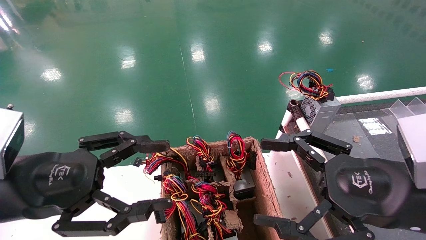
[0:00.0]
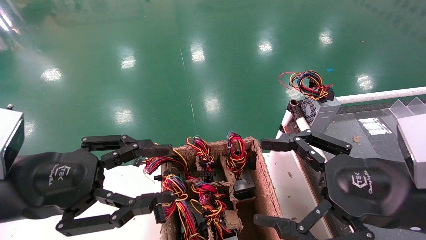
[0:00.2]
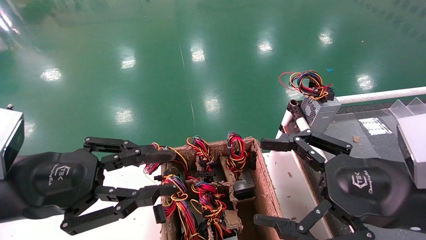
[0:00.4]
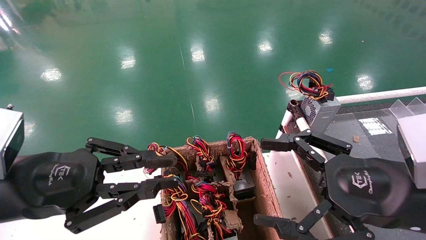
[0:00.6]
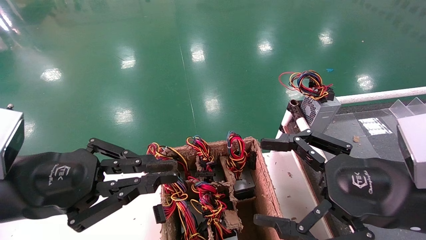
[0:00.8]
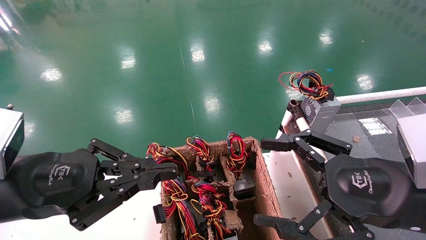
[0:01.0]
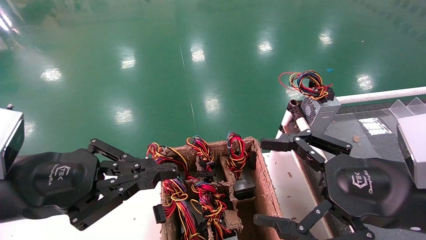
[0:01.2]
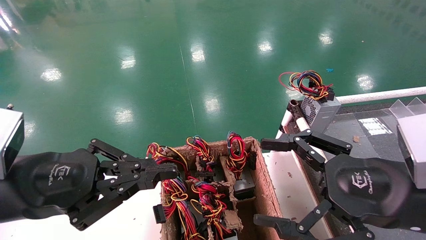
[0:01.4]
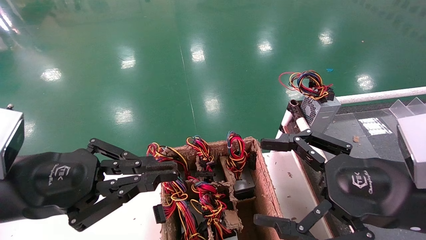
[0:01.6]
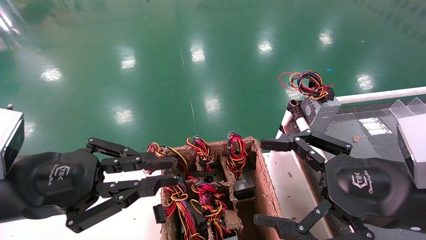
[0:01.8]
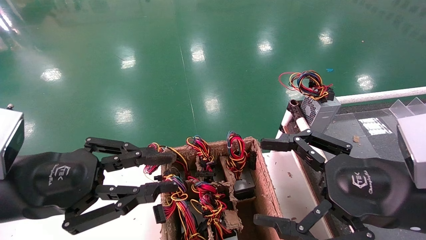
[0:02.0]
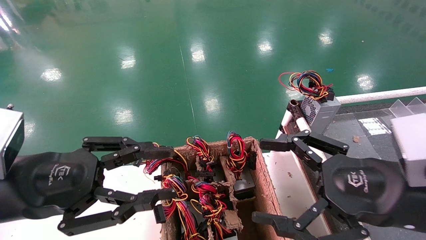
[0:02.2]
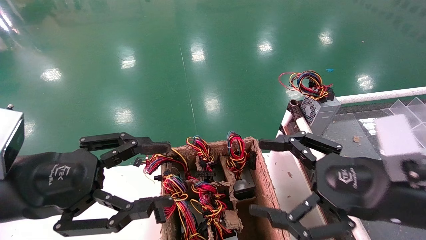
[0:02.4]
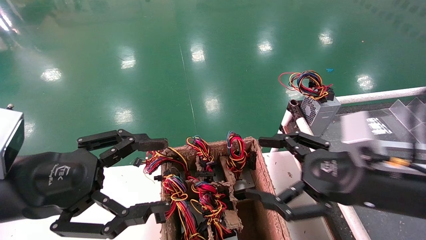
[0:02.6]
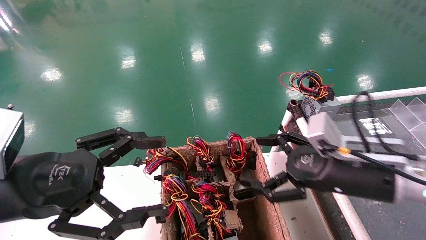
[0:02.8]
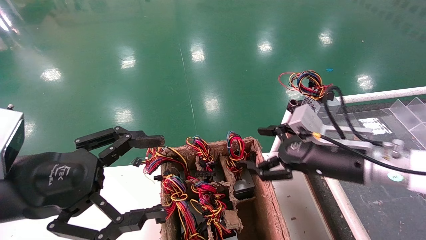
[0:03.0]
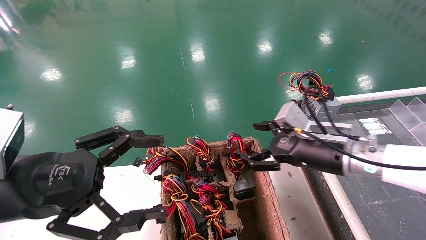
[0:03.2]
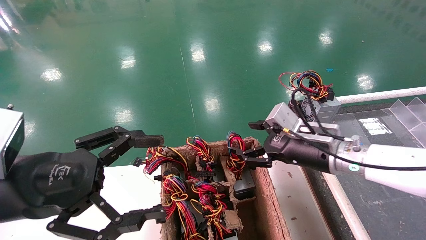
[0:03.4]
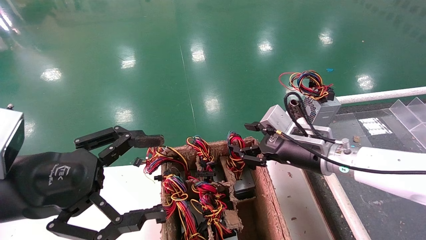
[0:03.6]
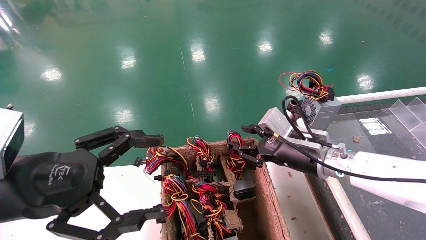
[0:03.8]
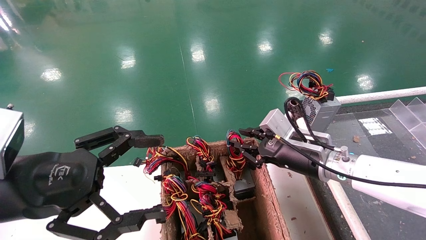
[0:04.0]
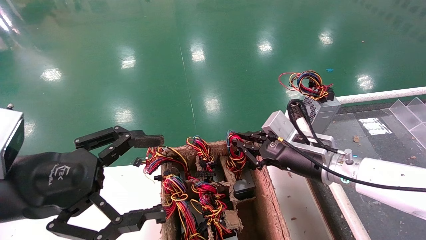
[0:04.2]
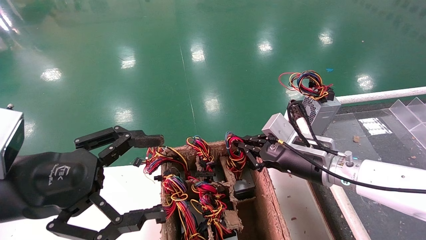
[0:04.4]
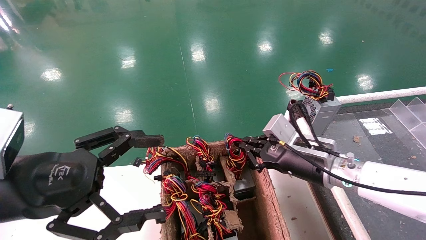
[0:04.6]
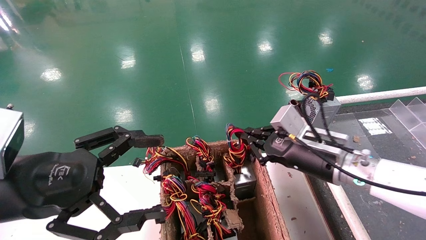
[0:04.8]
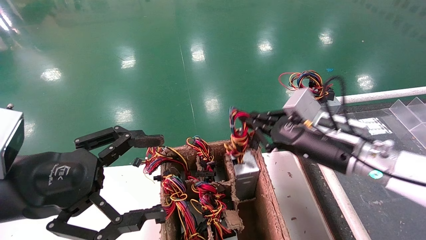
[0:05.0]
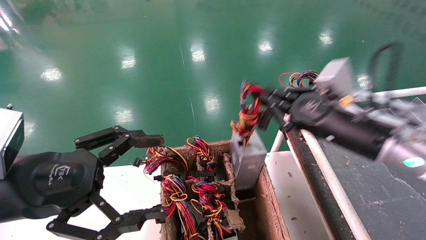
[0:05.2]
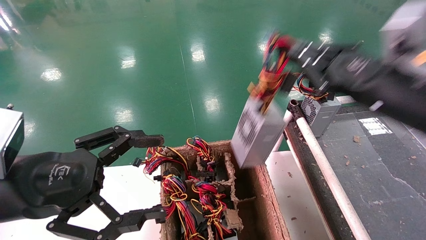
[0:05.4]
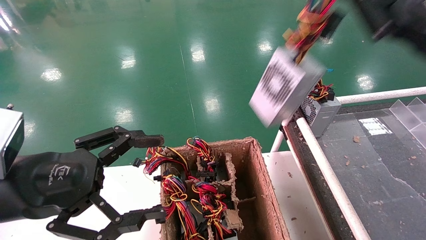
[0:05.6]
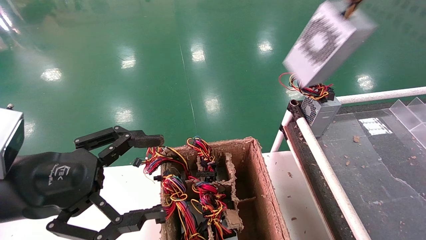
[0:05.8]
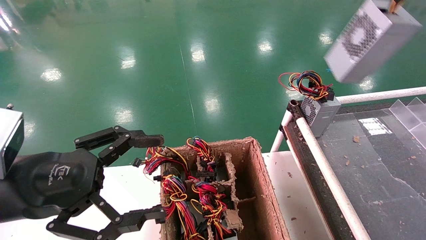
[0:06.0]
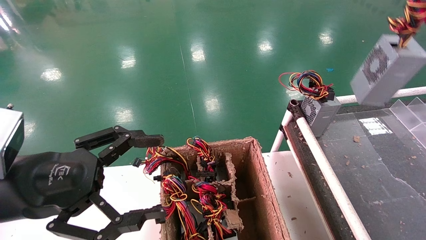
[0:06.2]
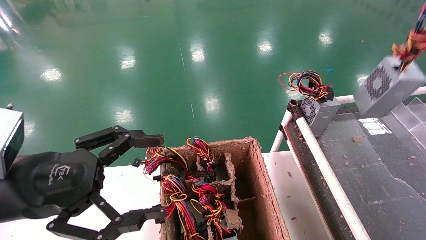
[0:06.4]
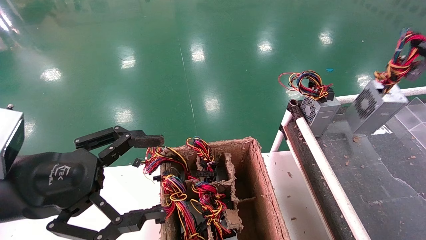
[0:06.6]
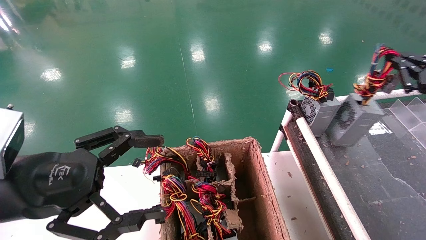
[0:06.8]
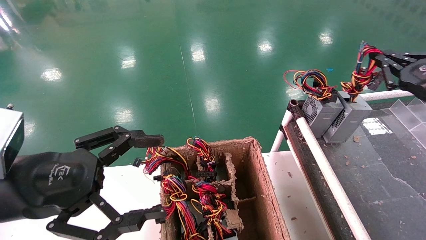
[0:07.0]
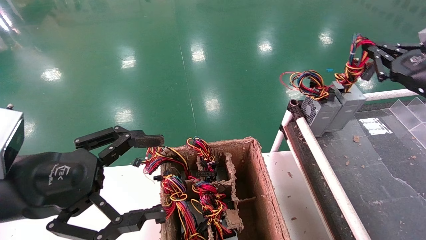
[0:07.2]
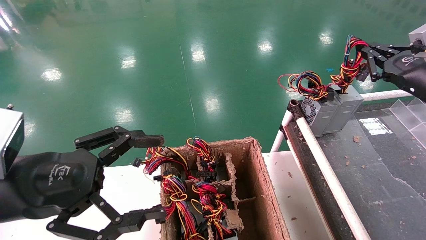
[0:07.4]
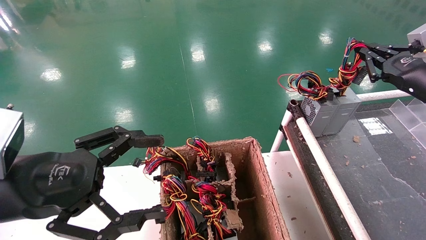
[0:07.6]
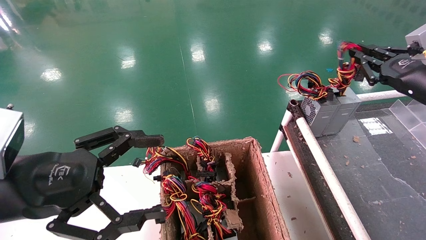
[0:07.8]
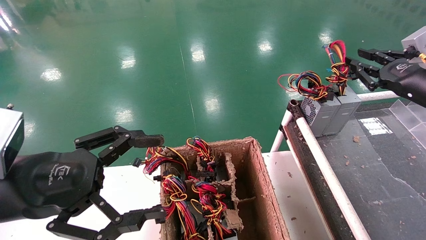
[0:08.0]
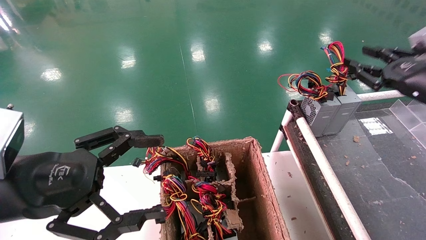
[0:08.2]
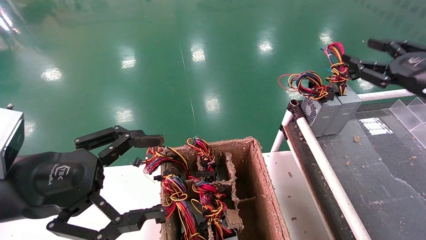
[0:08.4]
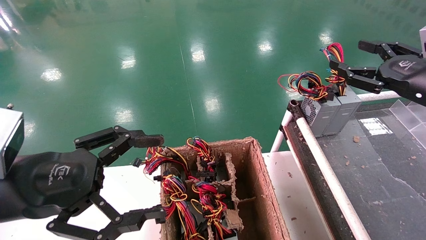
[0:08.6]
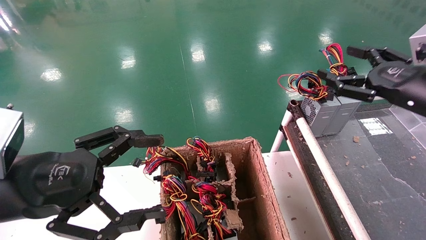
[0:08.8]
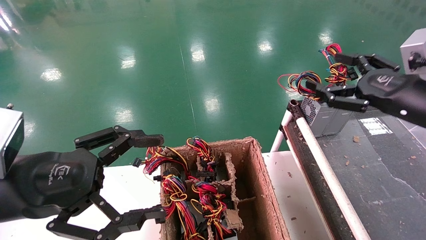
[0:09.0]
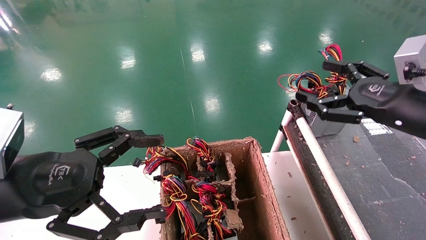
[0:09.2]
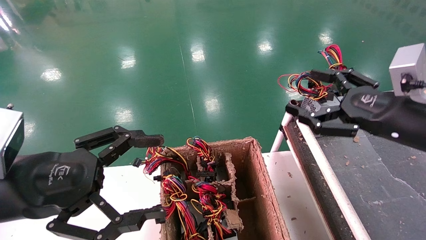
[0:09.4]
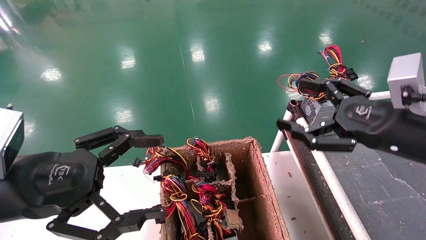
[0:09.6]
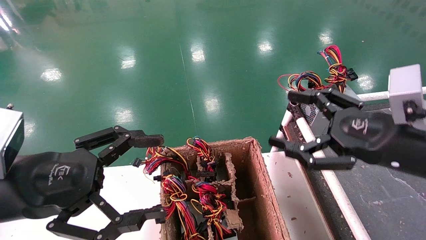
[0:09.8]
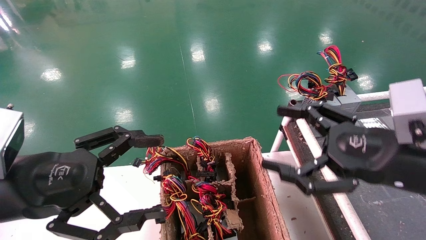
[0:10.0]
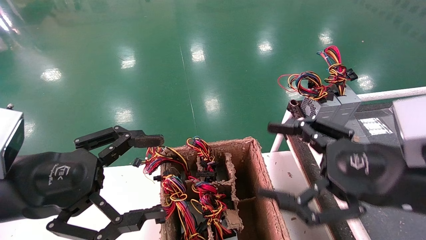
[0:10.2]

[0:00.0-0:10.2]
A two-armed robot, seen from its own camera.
Step, 0:02.4 to 0:04.4: Grab and lift the power supply from the large box.
Step, 0:04.6 to 0:08.2: Place the power supply on the operating table.
0:00.0 to 0:01.4: The left gripper closes.
0:01.4 to 0:03.0: The left gripper opens up. Meanwhile the right gripper shifts approximately 15 cm forward.
0:03.0 to 0:04.4: The right gripper changes place by about 5 cm, and closes up.
0:04.4 to 0:05.8: The right gripper shifts about 30 cm upward, to the right and backward.
0:05.8 to 0:07.2: The right gripper travels forward, downward and to the right by some 15 cm.
0:07.2 to 0:08.8: The right gripper moves about 5 cm, and opens up.
0:08.8 to 0:10.2: The right gripper heads backward, to the left and downward, covering some 15 cm.

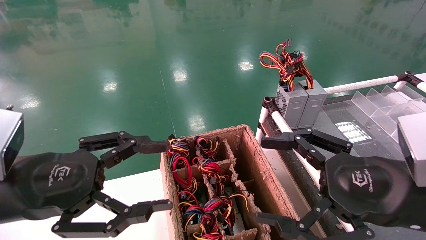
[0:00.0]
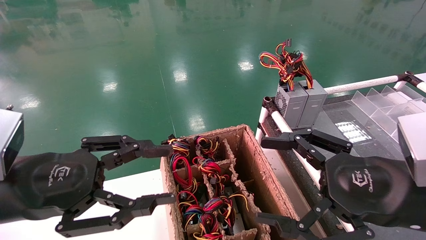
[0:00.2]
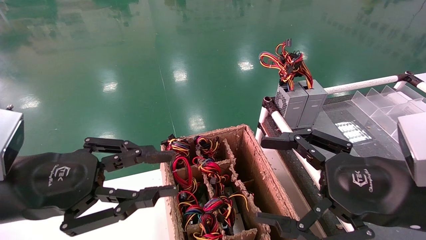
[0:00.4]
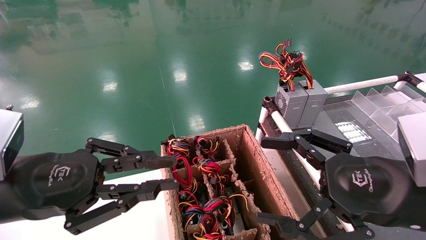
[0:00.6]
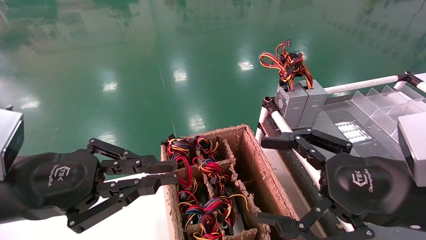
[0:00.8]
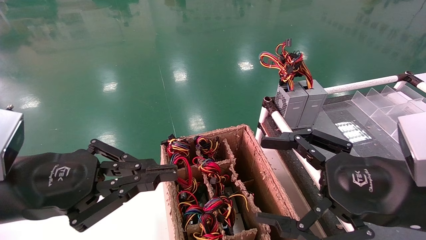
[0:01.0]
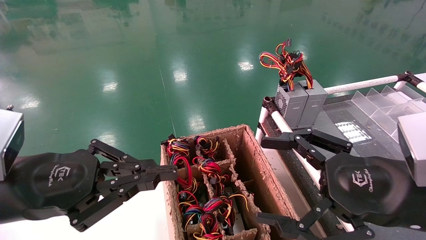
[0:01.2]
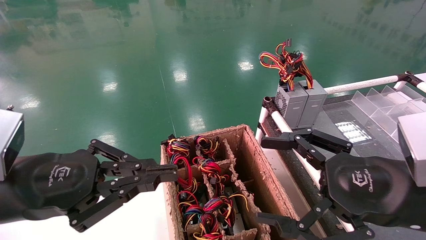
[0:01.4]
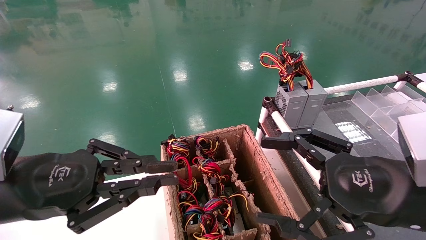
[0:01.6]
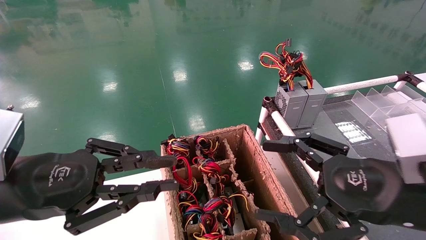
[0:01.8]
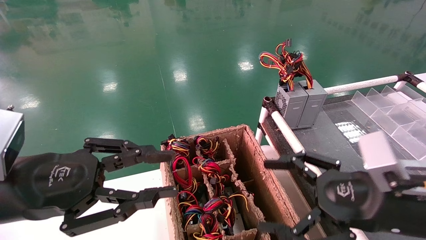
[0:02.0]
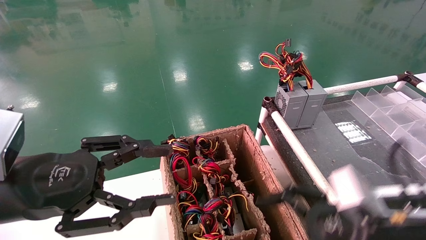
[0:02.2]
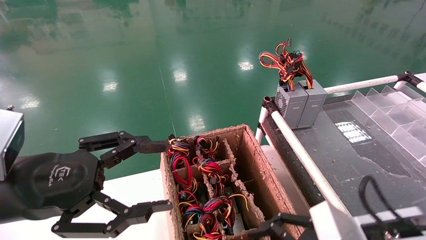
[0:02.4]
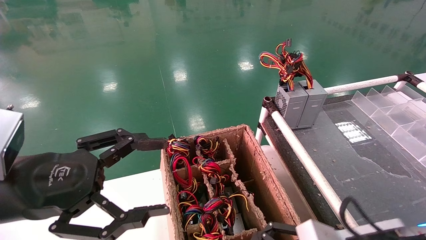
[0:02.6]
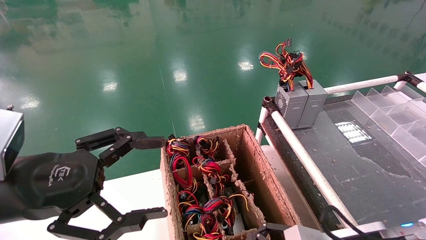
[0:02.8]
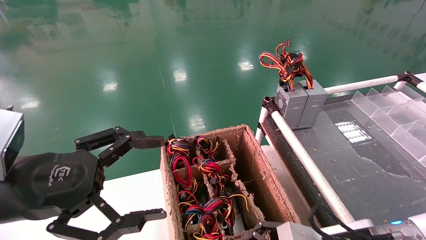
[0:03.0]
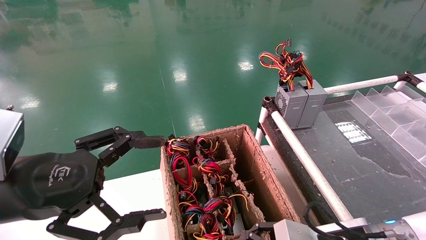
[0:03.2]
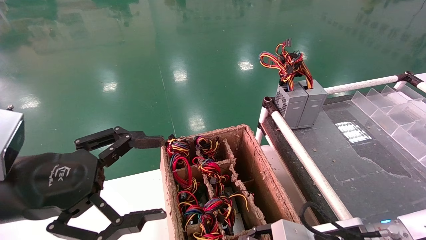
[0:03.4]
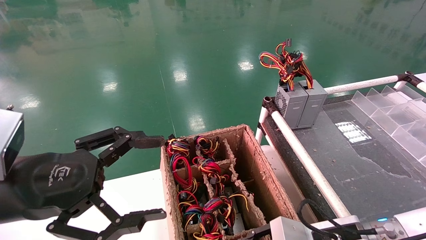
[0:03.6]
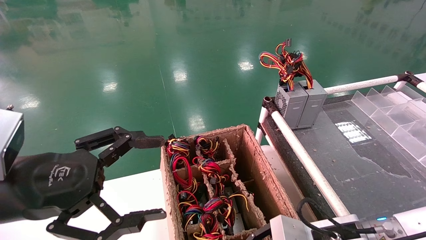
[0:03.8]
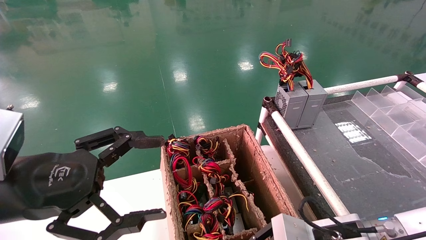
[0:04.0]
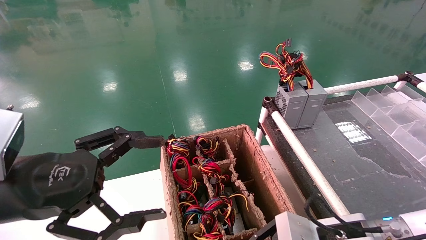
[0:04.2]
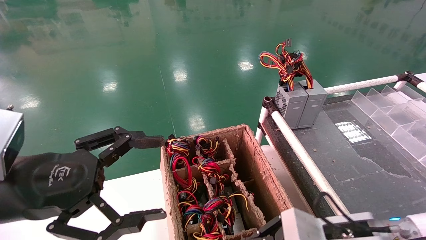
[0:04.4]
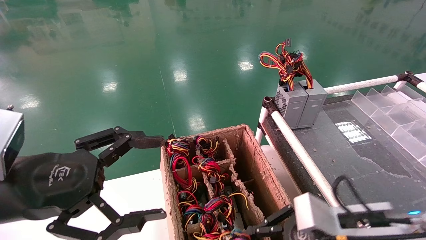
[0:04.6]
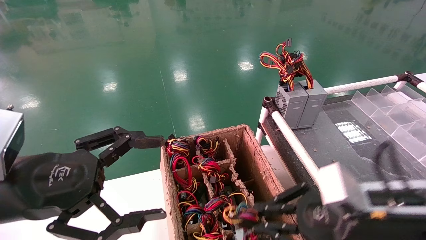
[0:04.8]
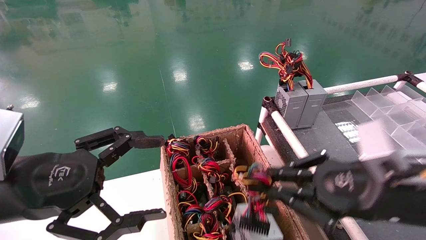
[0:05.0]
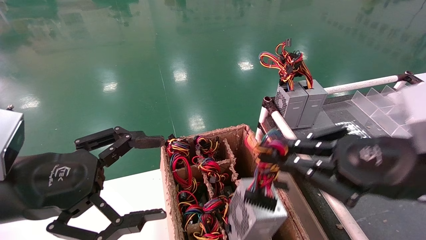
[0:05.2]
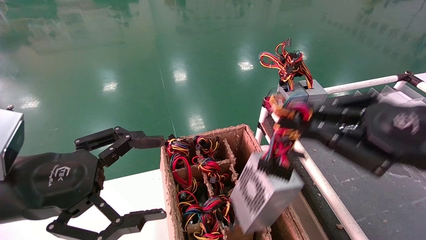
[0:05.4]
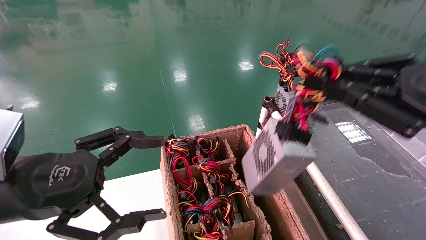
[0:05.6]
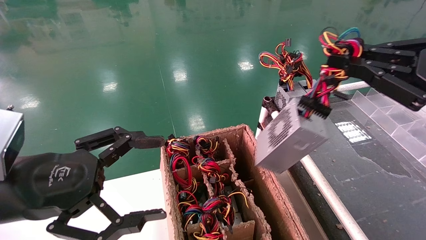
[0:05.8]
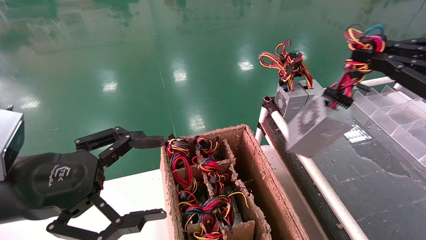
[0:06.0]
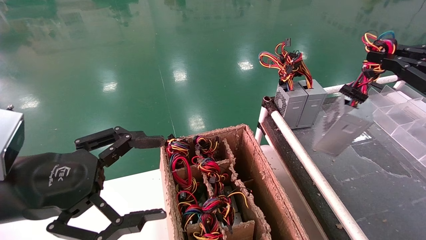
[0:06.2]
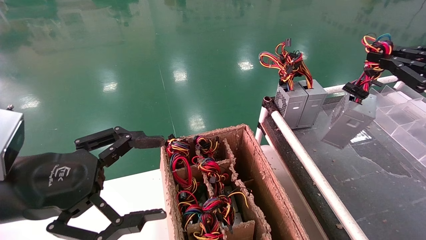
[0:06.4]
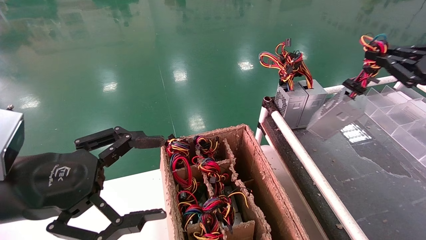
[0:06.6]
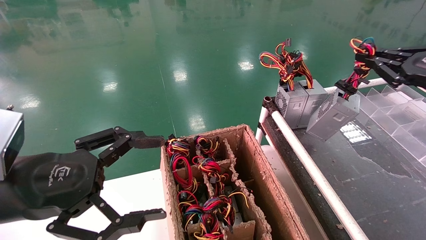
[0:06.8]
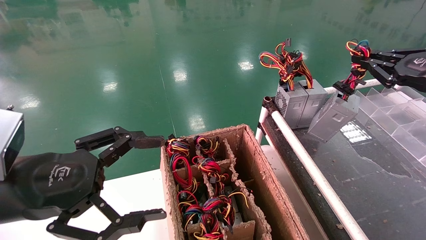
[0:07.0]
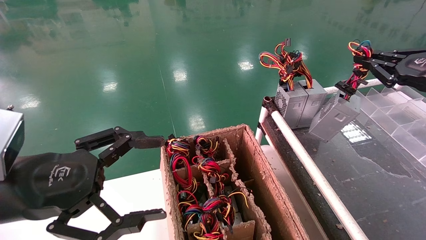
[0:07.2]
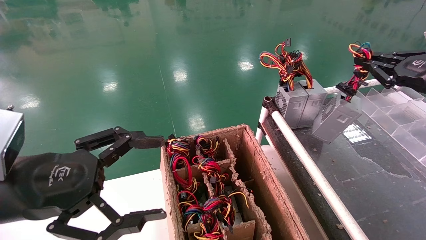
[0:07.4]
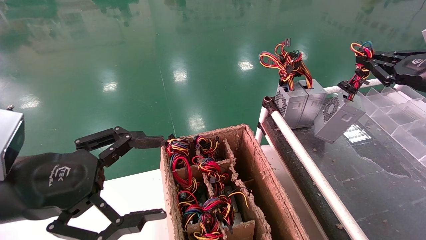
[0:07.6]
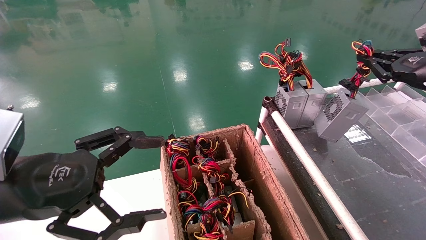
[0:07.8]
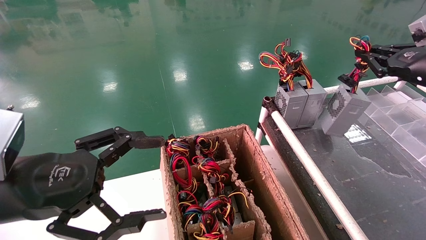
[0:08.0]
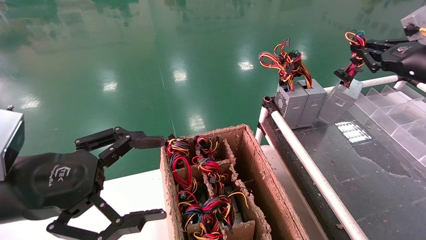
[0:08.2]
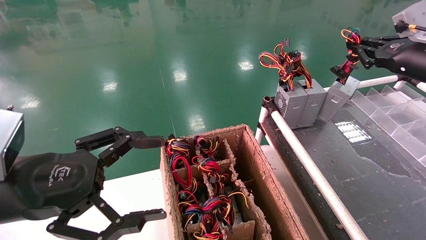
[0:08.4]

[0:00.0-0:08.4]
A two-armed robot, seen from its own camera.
Step, 0:01.0 to 0:04.2: Grab and lift the power supply from the large box.
0:00.0 to 0:01.4: The left gripper closes.
0:01.4 to 0:02.8: The left gripper opens its fingers, while the right gripper is displaced downward by roughly 10 cm.
0:02.8 to 0:04.2: The right gripper closes up.
0:04.2 to 0:05.6: The right gripper heads upward and to the right, covering approximately 25 cm.
0:05.6 to 0:07.0: The right gripper is displaced forward and to the right by about 15 cm.
0:07.0 to 0:08.4: The right gripper moves forward, about 5 cm.
